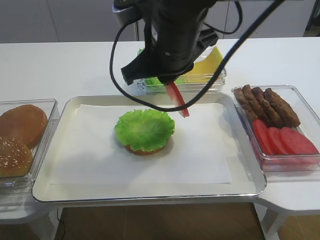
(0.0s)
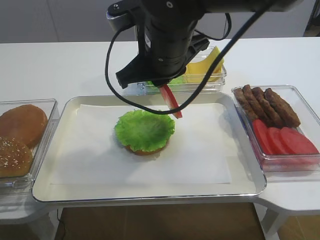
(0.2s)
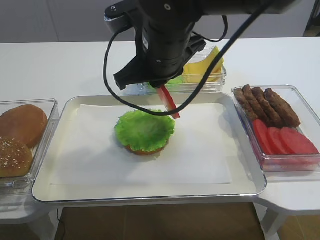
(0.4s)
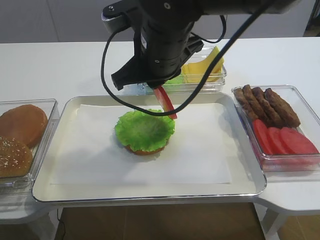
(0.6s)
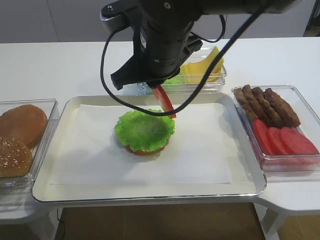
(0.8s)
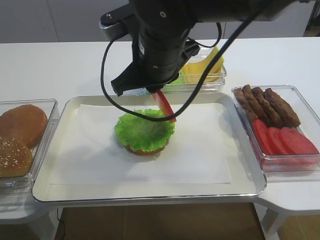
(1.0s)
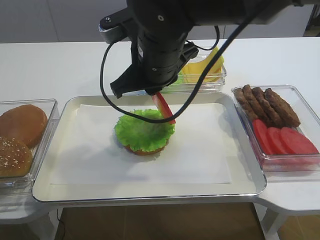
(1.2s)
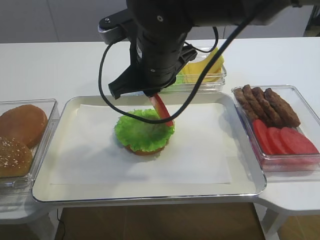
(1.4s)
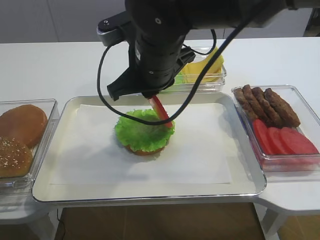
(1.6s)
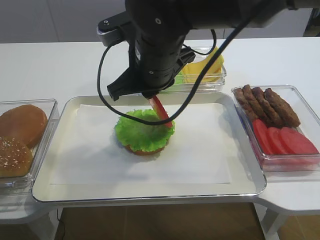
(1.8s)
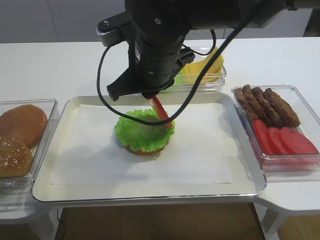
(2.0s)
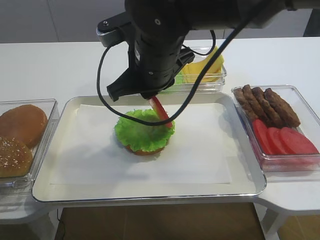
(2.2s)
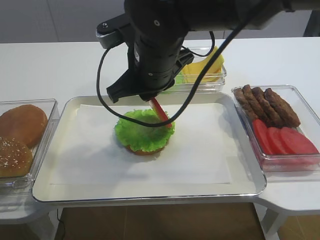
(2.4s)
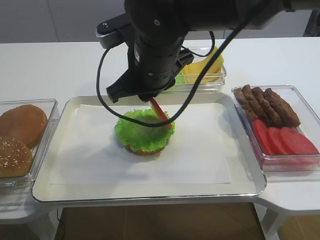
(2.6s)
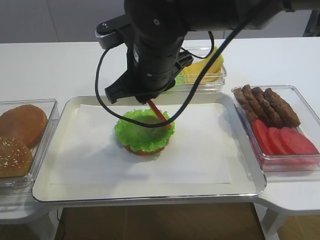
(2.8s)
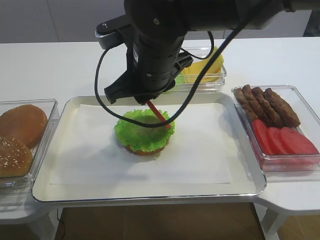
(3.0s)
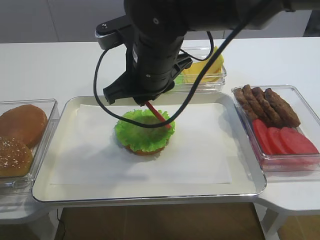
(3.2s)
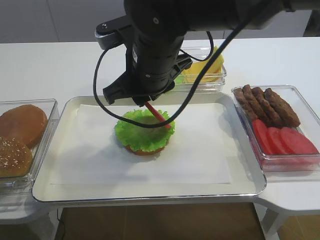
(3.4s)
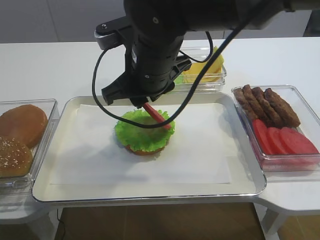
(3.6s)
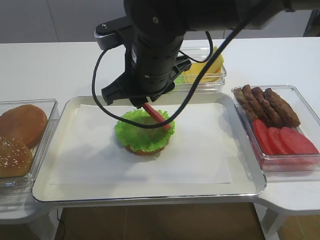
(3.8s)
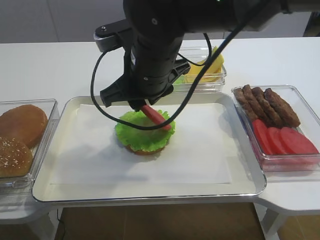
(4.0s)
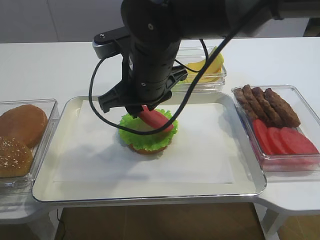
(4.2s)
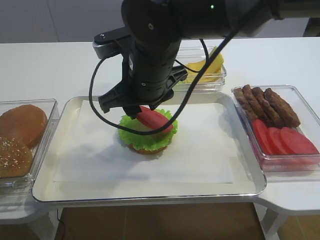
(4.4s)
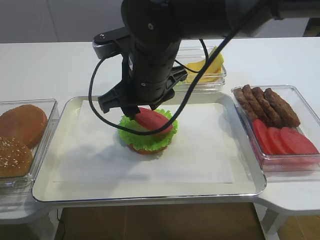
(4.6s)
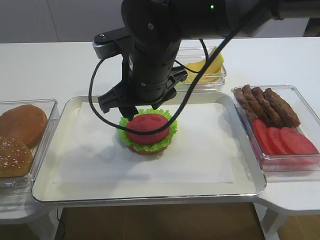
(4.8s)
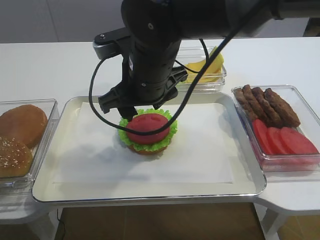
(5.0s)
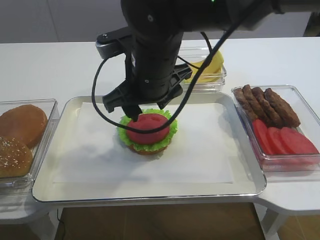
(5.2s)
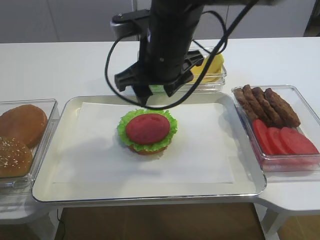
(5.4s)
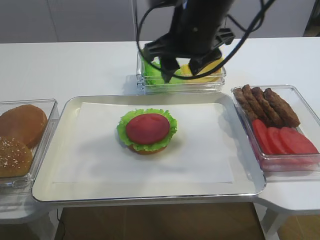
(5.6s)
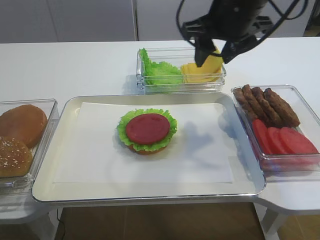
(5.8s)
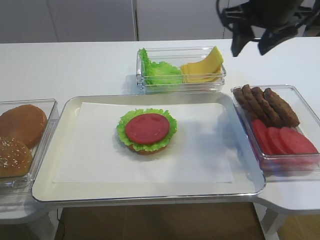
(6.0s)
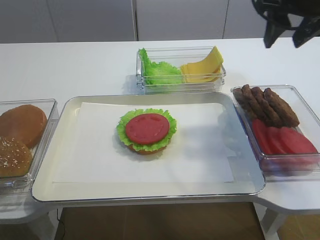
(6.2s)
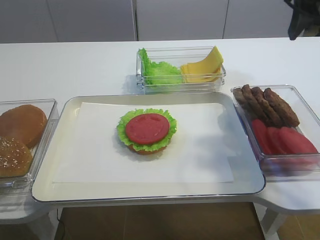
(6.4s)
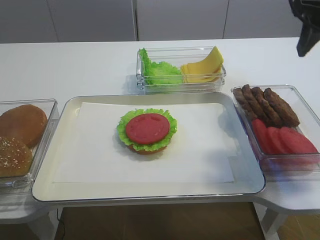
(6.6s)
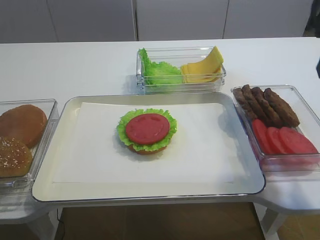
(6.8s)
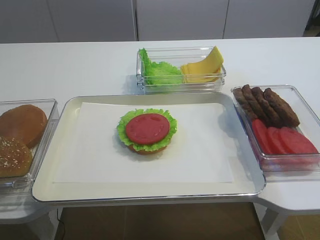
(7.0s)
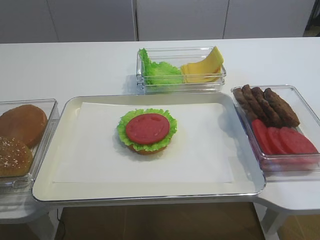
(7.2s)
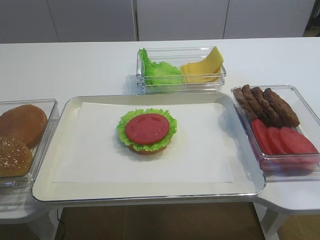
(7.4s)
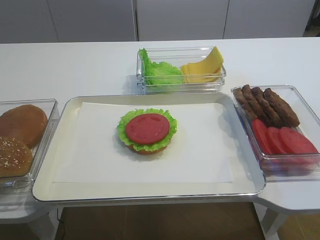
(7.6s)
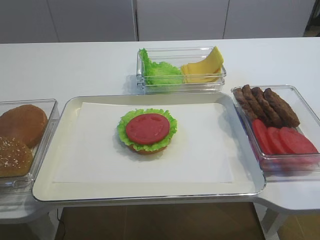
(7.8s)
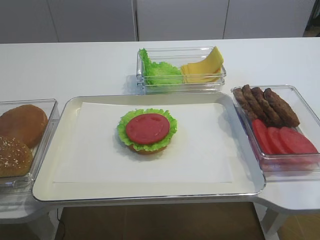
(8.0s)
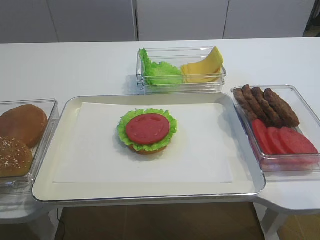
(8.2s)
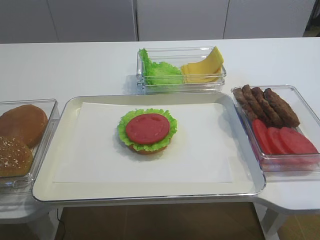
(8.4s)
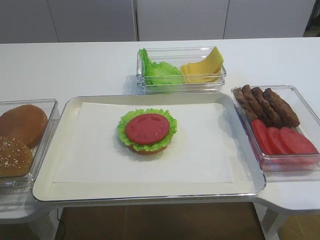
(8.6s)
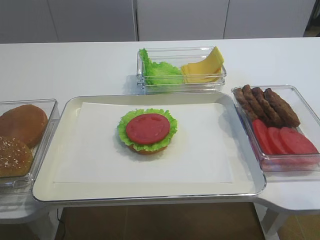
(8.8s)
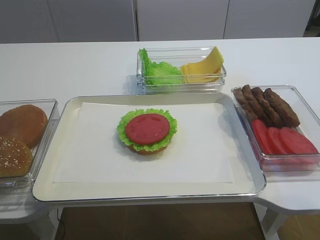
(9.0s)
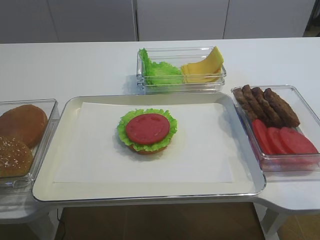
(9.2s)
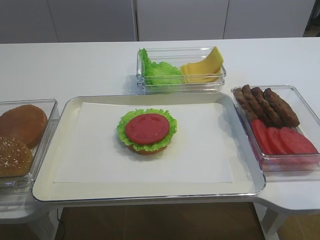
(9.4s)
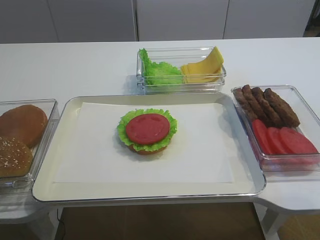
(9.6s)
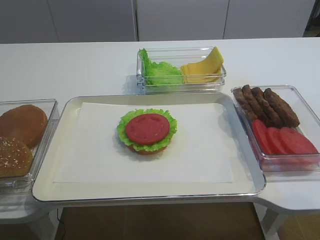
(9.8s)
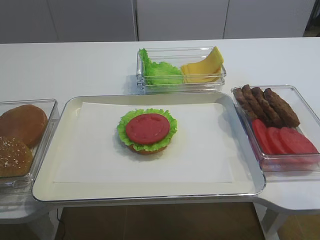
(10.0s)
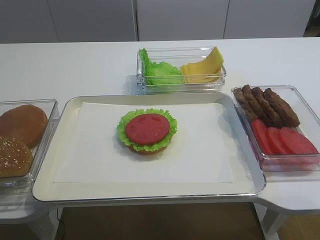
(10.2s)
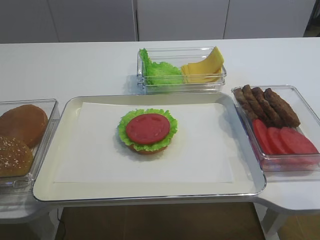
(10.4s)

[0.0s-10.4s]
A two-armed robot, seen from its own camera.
Step, 0.0s to 5.2s: Place the tomato slice on the lettuce leaf with the right gripper.
0.0s to 1.4s: The grippers move only a little.
1.4s to 3.0s: Neither gripper changes place.
3.0s to 4.4s: There are only small adjustments of the grippers.
4.4s to 6.0s: The right gripper travels to the right and upward by approximately 20 cm.
6.0s to 7.4s: The right gripper shifts about 25 cm backward.
7.4s to 9.0s: The right gripper goes roughly 15 cm backward and downward.
9.0s to 10.4s: Neither gripper changes place.

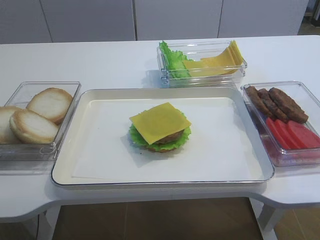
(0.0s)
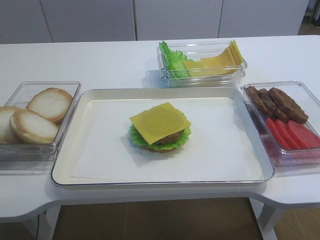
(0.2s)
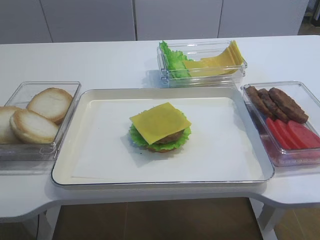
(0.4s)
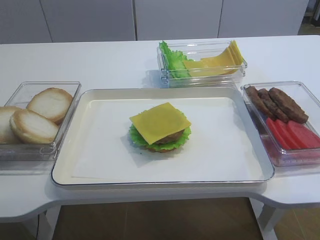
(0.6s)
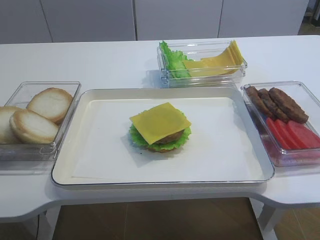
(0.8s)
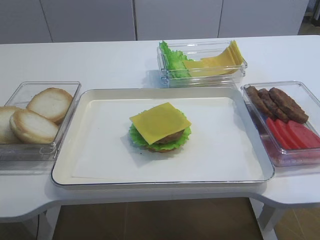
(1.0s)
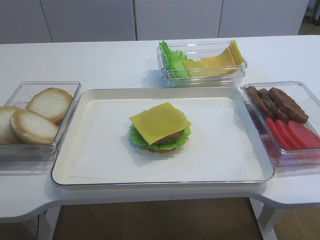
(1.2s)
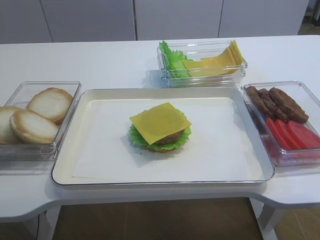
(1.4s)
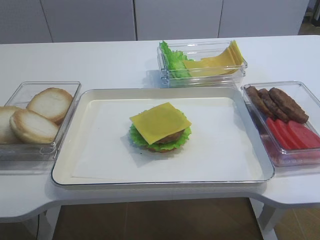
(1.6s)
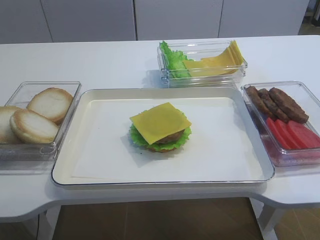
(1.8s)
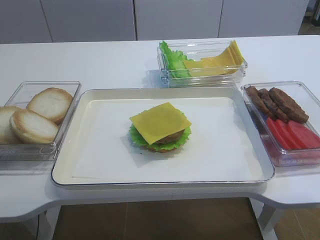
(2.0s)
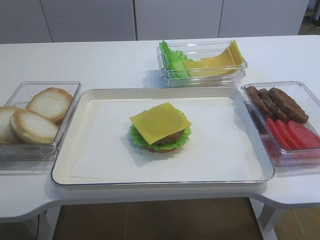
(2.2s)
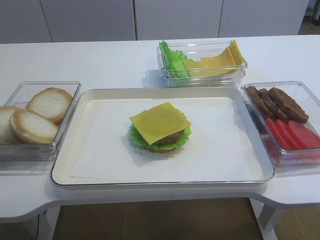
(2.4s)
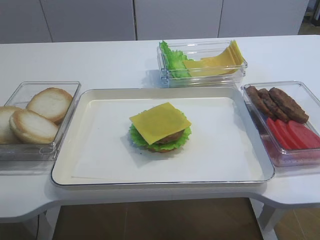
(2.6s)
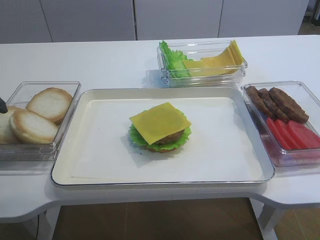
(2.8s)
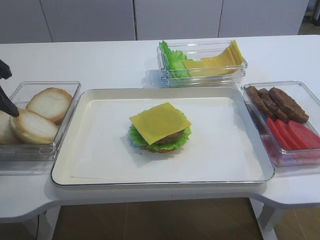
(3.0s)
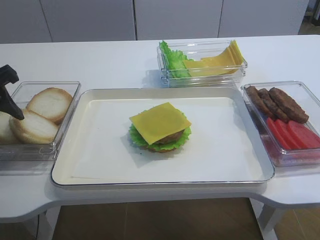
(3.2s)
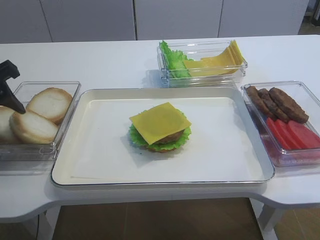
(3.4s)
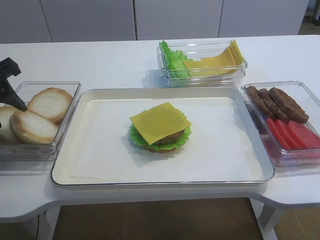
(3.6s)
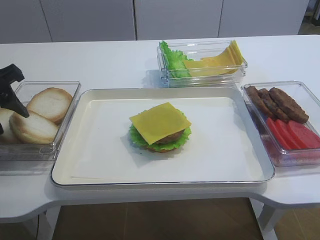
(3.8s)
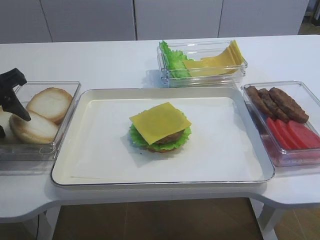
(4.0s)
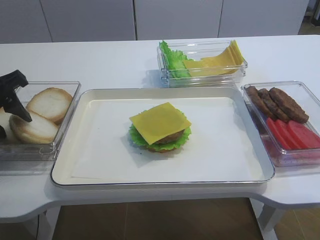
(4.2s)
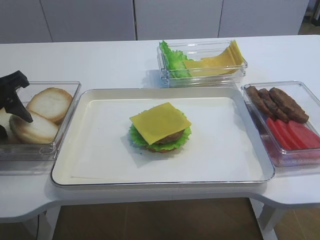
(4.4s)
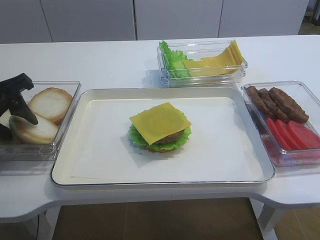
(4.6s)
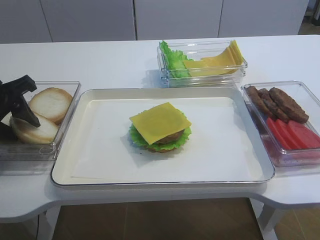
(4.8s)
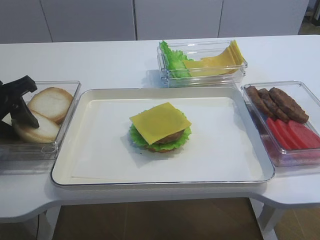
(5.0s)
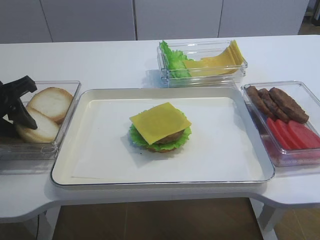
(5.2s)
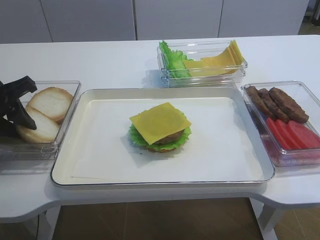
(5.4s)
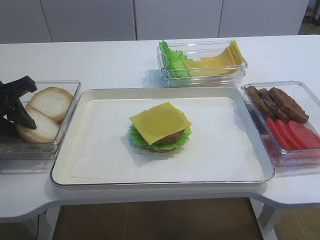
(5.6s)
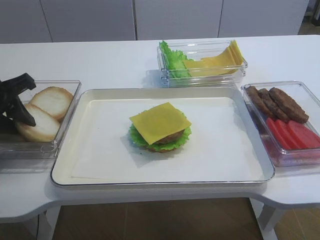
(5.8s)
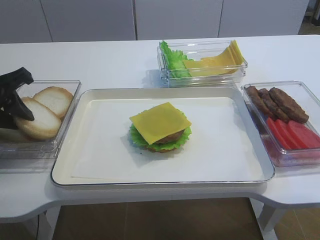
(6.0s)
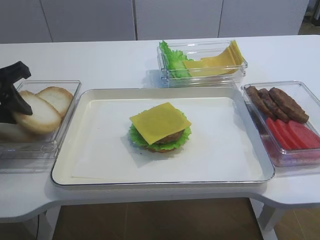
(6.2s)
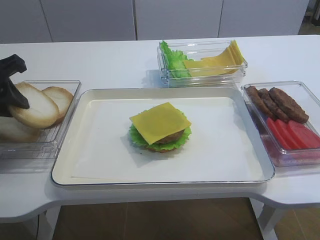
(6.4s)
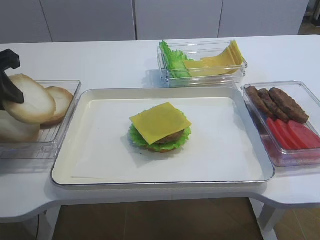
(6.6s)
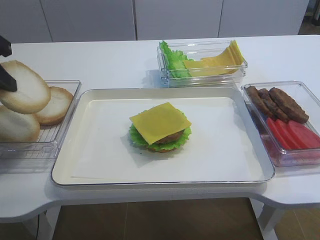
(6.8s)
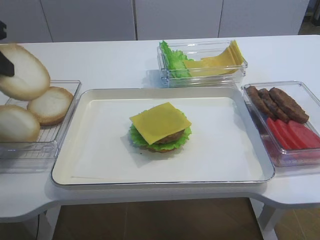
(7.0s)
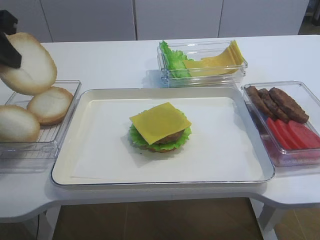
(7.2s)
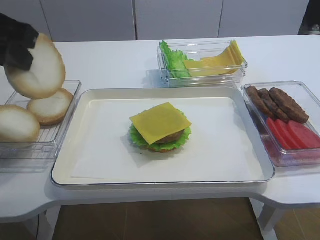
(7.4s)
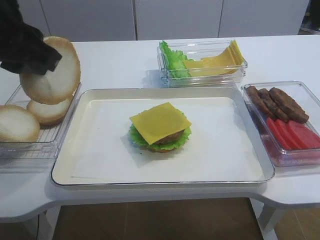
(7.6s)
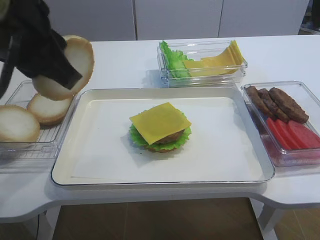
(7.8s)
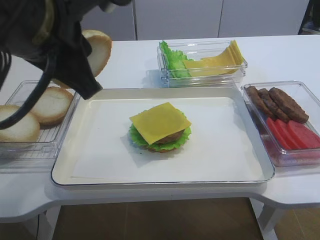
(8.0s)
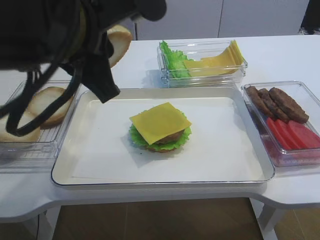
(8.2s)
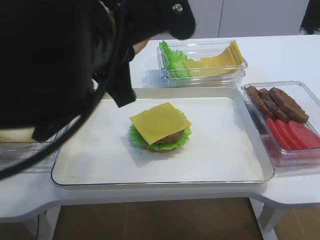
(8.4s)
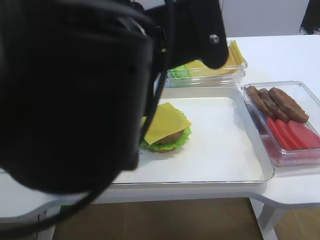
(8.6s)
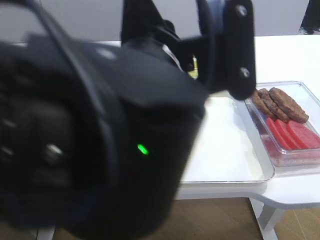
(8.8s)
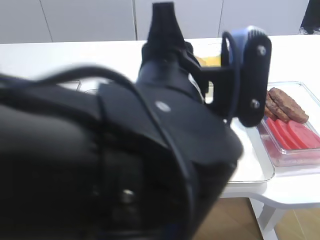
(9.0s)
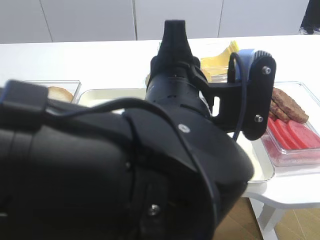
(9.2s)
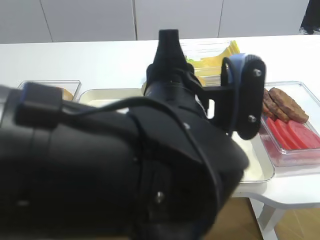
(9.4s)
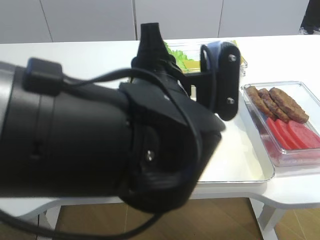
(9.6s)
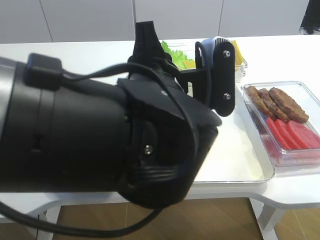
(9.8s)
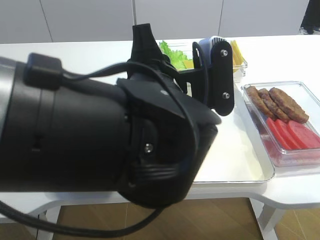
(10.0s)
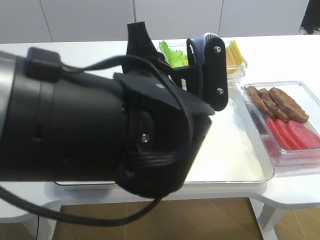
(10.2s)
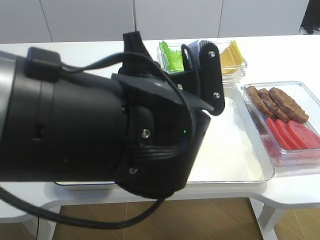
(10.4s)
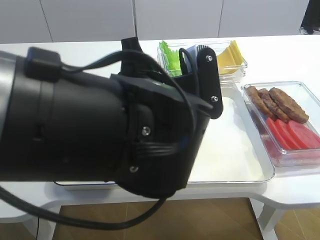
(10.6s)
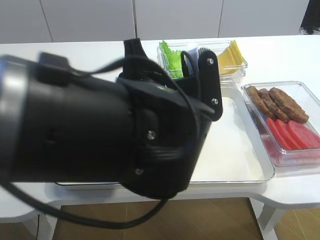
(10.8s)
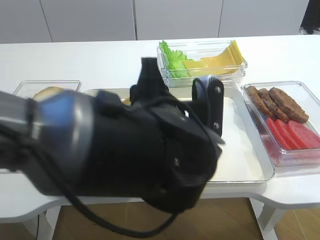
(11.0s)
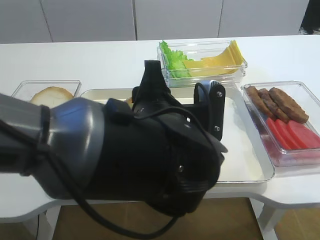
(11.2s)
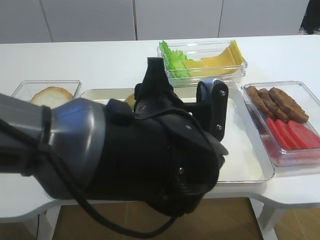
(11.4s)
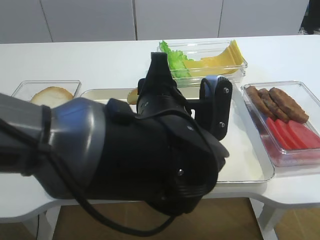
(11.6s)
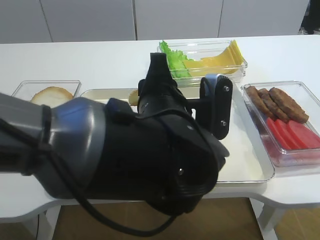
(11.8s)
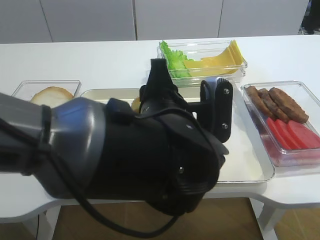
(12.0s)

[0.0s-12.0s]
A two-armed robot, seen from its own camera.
Step, 0.0s to 6.4s: Pick up the hamburger lid with the left gripper.
1.6s to 3.0s: The left gripper heads forward, covering approximately 25 cm.
3.0s to 4.4s: There are only small adjustments of the grippers.
4.4s to 6.0s: The left gripper closes up.
6.0s to 7.6s: The left gripper goes roughly 15 cm upward, to the right and backward.
7.6s to 9.0s: The left gripper heads to the right, covering about 20 cm.
10.4s to 12.0s: The left gripper ends up approximately 5 cm from where it was.
